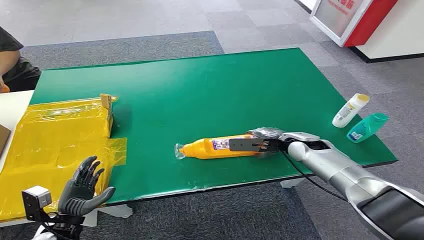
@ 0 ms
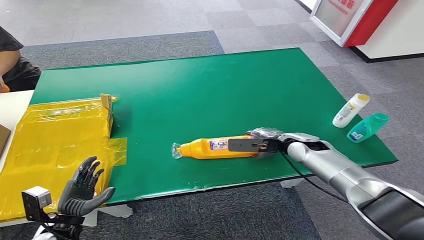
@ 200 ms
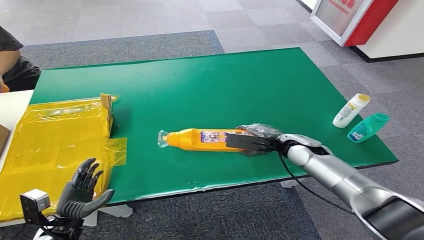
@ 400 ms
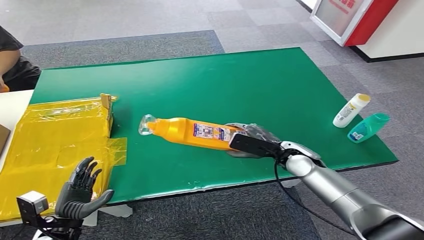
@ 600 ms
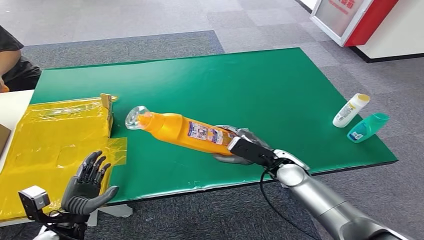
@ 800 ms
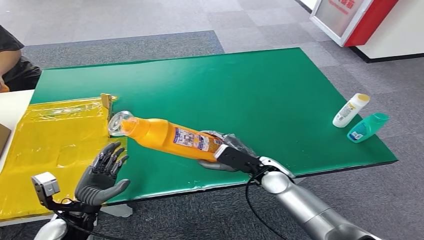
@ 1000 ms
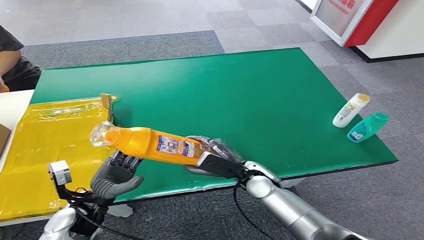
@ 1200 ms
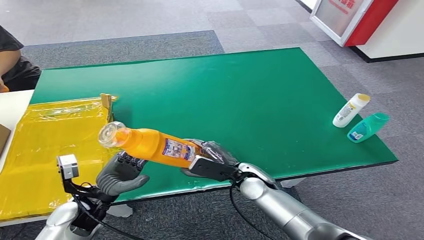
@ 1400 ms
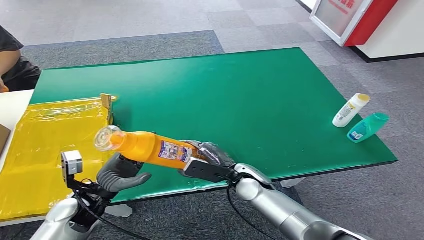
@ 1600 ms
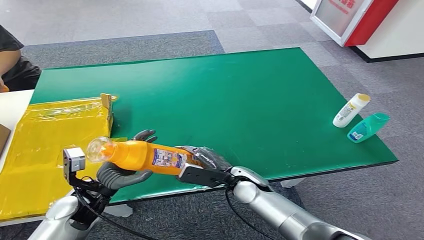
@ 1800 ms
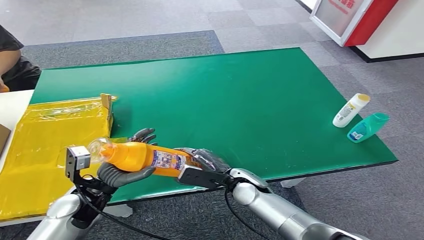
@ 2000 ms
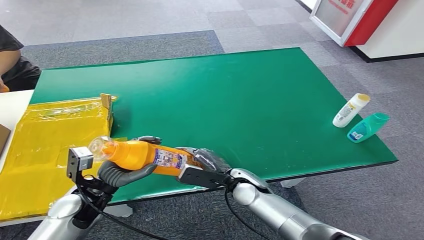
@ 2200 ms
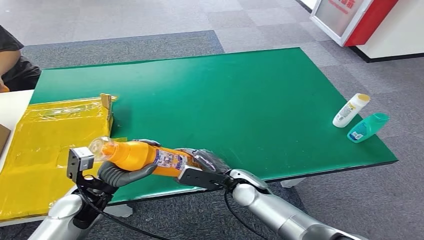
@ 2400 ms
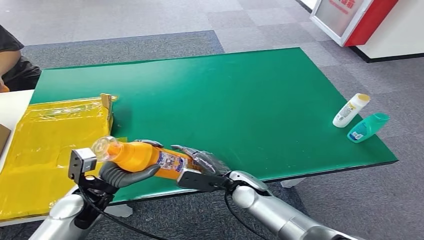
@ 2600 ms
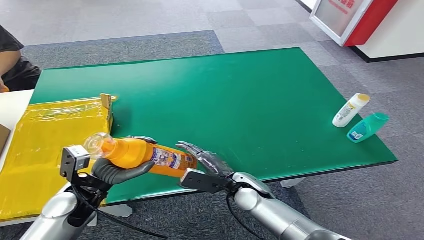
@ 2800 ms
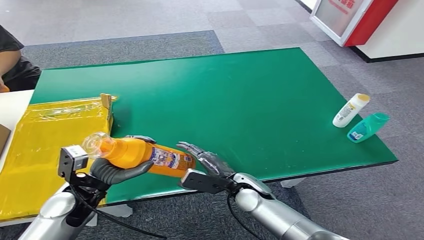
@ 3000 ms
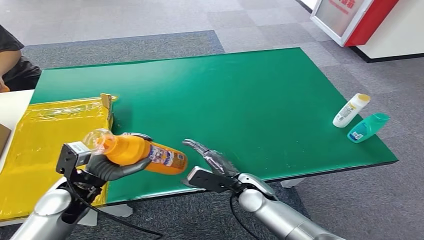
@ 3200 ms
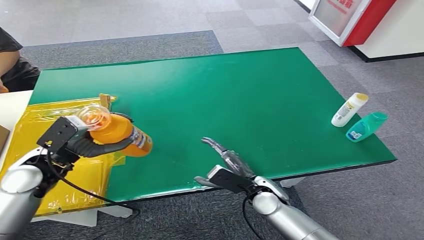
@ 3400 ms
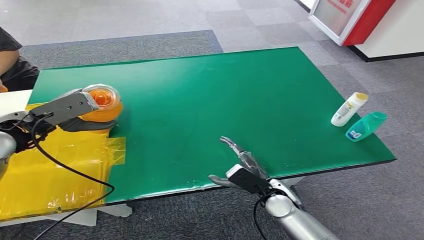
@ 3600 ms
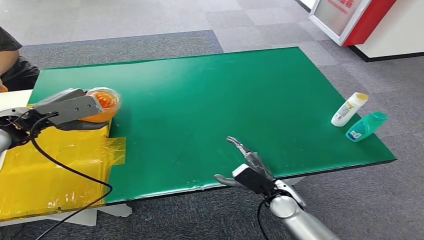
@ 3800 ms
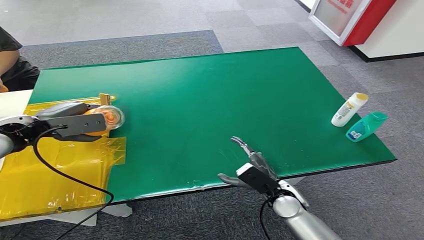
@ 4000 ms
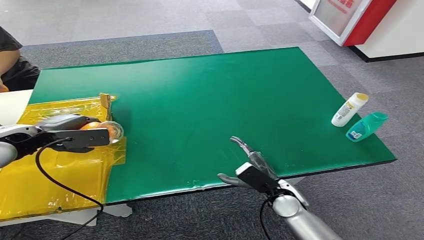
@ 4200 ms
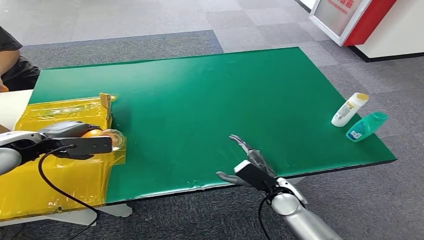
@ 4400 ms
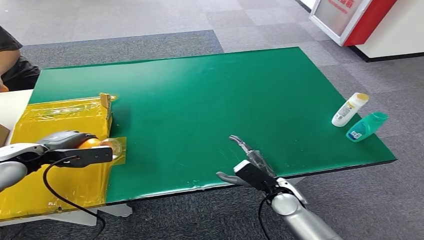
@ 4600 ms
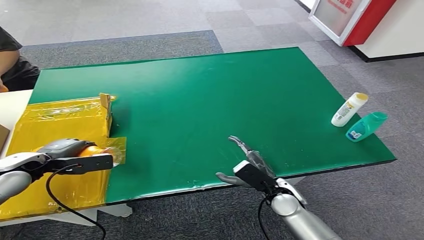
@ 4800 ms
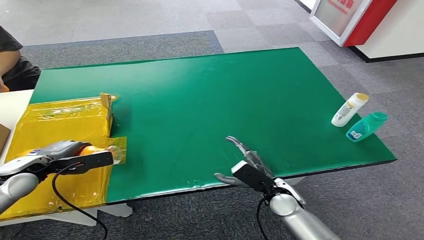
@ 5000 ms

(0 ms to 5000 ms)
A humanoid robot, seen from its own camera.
Step, 0 ms - 1600 ms: Pick up the bottle from the table.
Step, 1800 ms - 5000 ms: Turn the bottle to the front side.
1600 ms - 3400 ms: The right hand moves about 5 cm; the left hand is displaced upward, forward and to the left by some 15 cm.
3400 ms - 5000 ms: The left hand heads to the left, covering roughly 5 cm, and travels upward and back again, about 10 cm each way.
